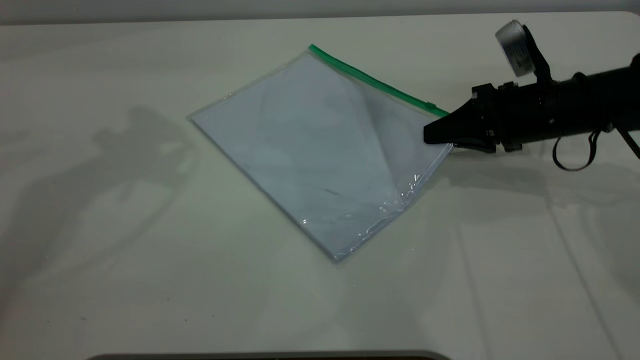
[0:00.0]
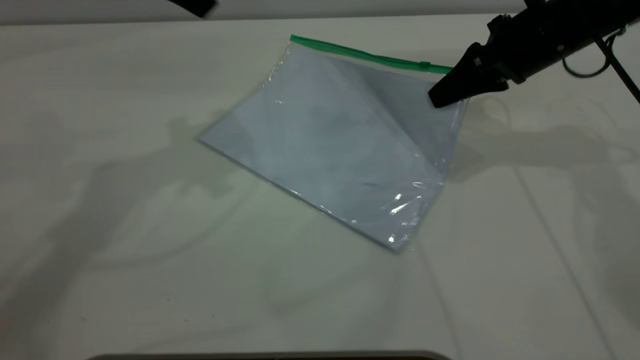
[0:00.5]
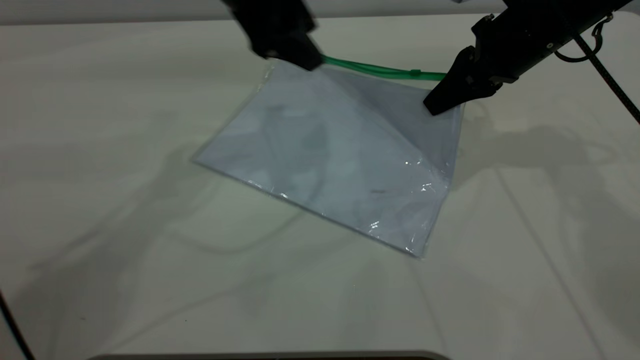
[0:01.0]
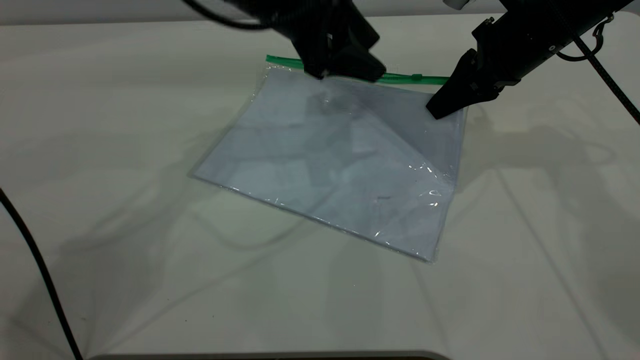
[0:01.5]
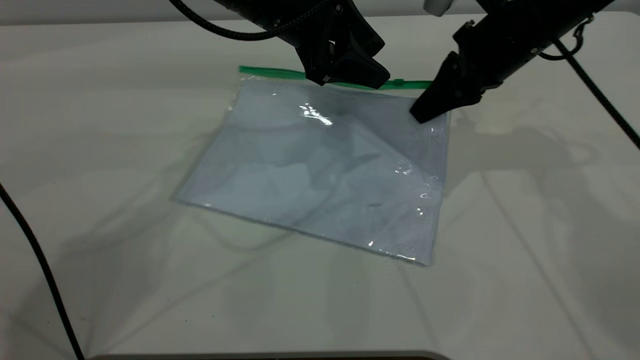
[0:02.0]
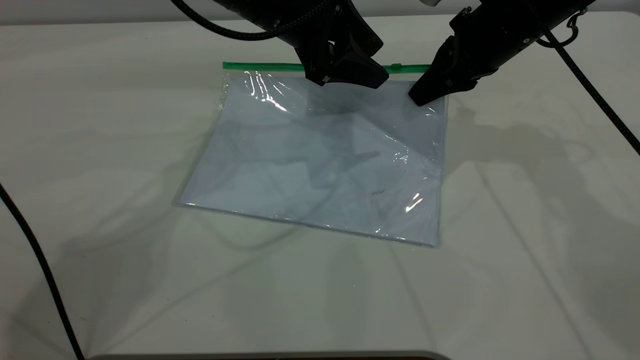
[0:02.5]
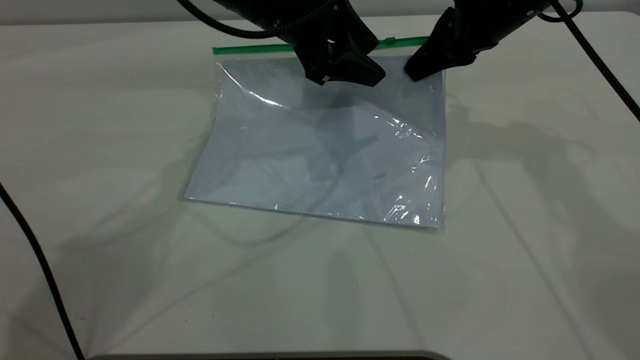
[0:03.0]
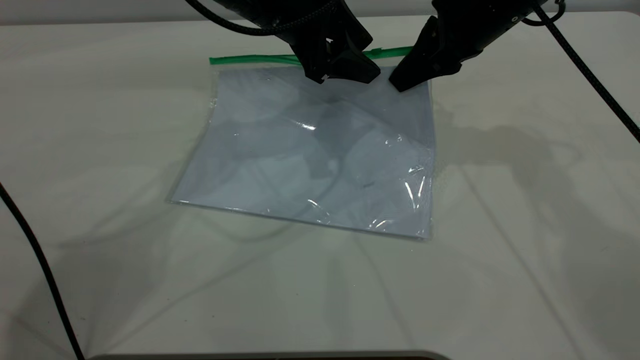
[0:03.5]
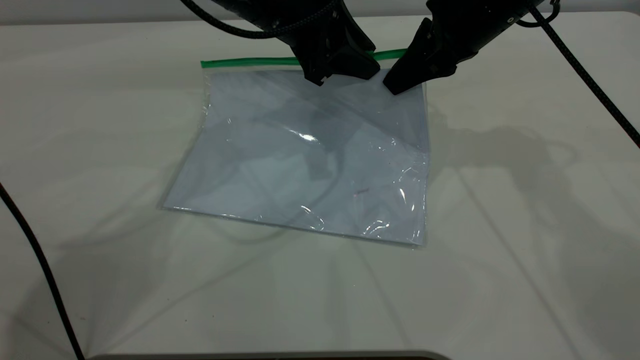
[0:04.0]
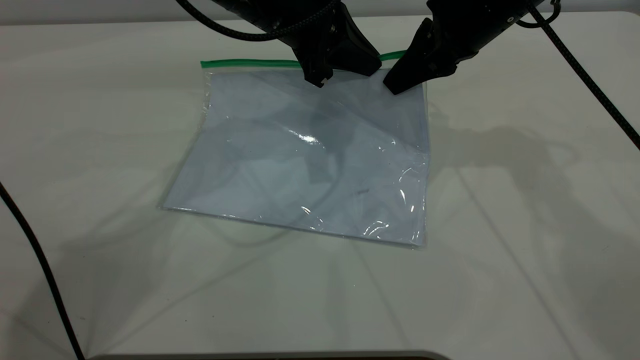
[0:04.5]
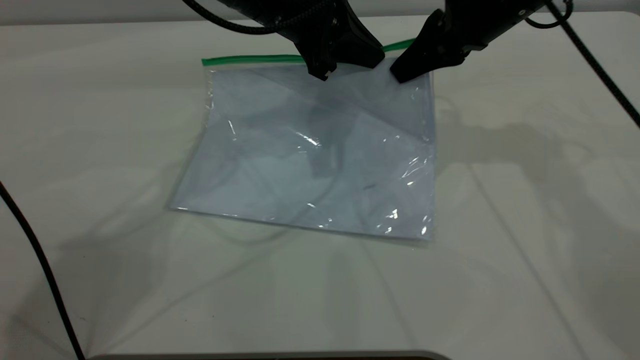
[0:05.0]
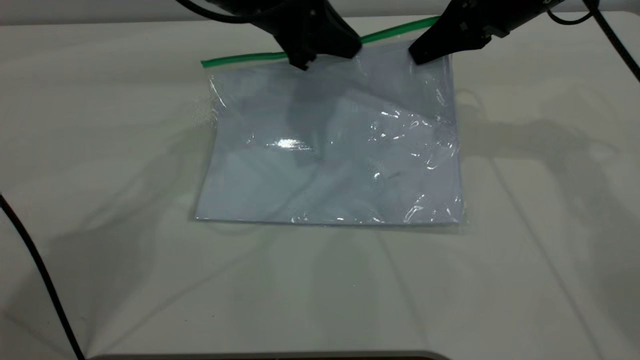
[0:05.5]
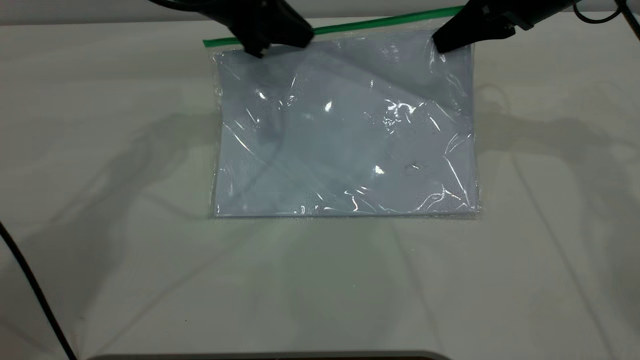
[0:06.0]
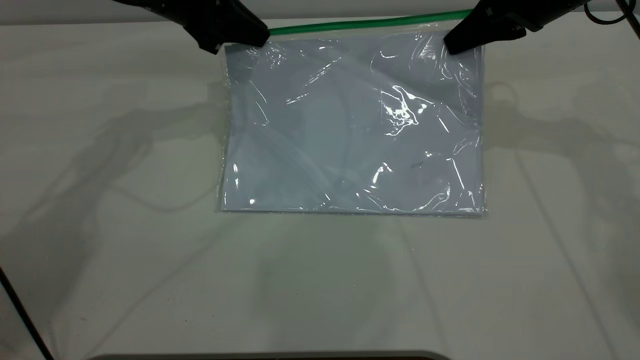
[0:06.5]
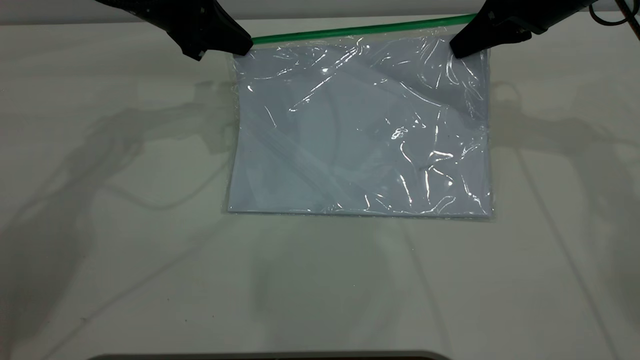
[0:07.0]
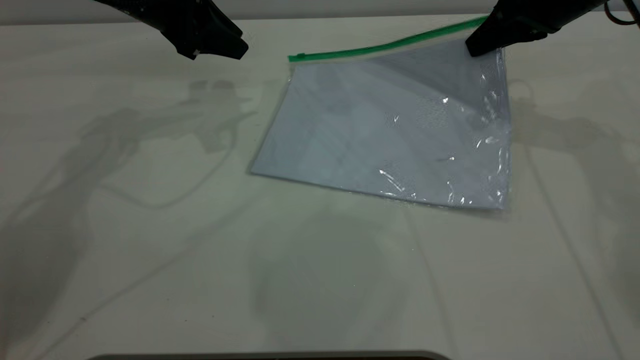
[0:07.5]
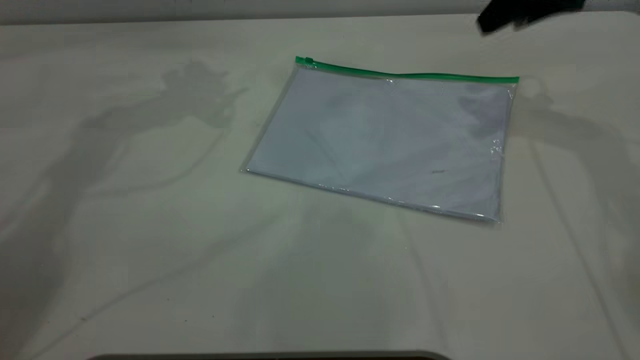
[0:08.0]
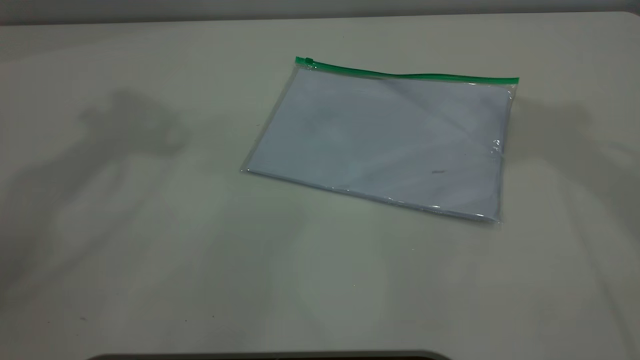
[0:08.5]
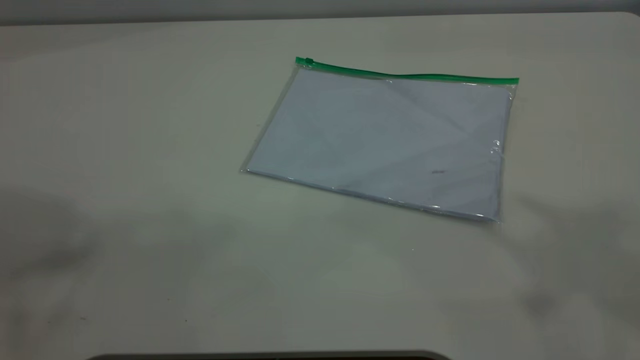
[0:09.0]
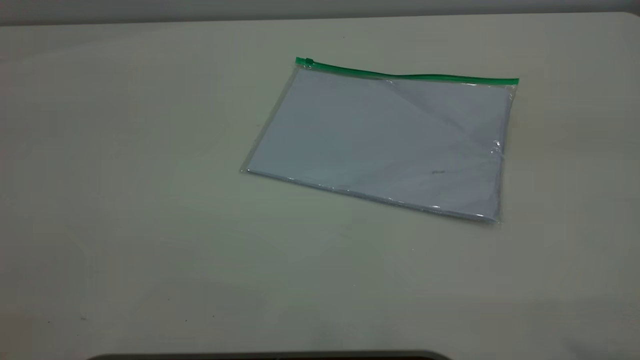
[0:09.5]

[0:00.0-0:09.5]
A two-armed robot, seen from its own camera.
Step, 0:01.0 to 0:07.0: Pulling up the zipper on the transparent plastic bag with the left gripper to close it.
Step, 0:07.5 to 0:08.5: Place the transparent plastic bag.
0:00.0 to 0:02.0: The left gripper goes some 25 cm to the right and downward. The right gripper moves upward and to the left, about 10 cm.
0:02.0 to 0:04.0: The left gripper closes its fingers.
0:04.0 to 0:05.5: The left gripper closes up; the right gripper shifts by roughly 5 cm.
0:05.5 to 0:07.5: The right gripper ends up some 5 cm from where it was; the left gripper heads to the left, covering about 10 cm, and opens its fingers.
0:07.5 to 0:09.5: The grippers both shift backward and upward by some 50 cm. The right gripper opens its fingers.

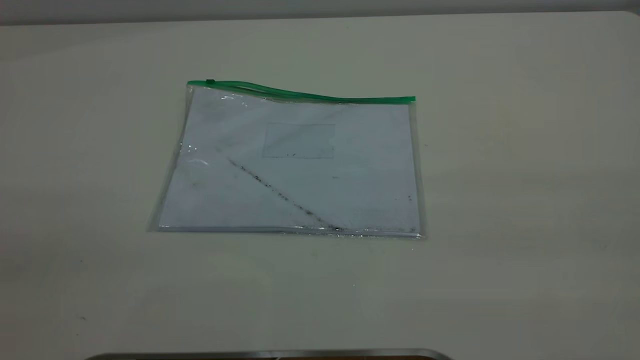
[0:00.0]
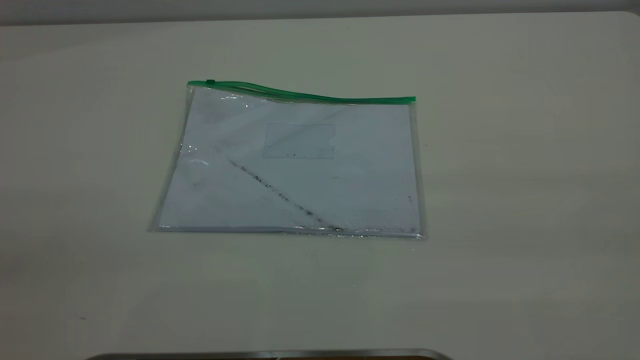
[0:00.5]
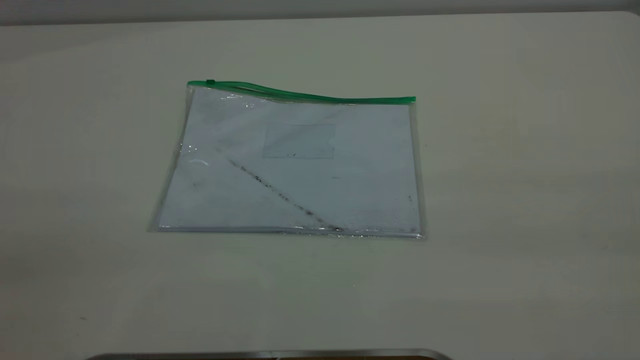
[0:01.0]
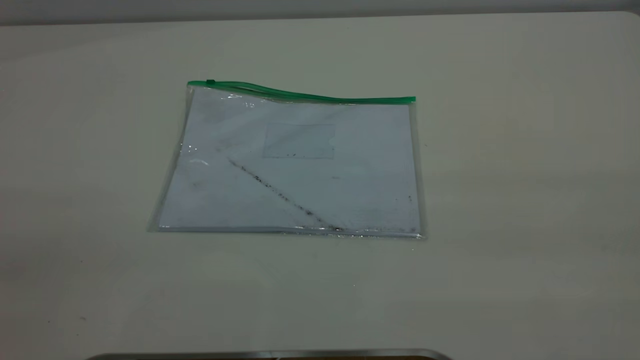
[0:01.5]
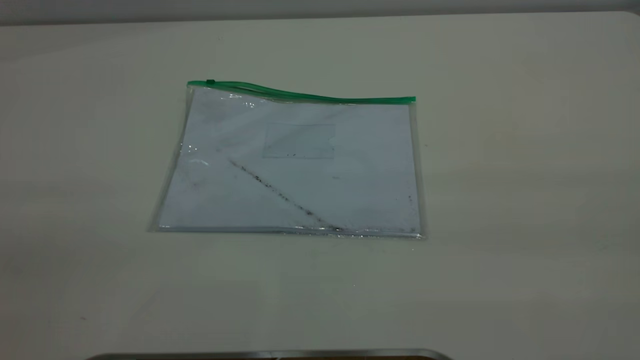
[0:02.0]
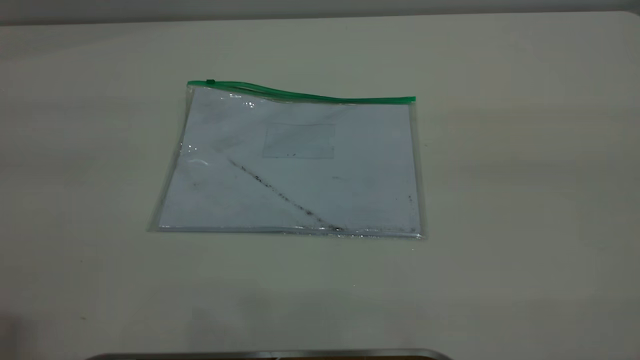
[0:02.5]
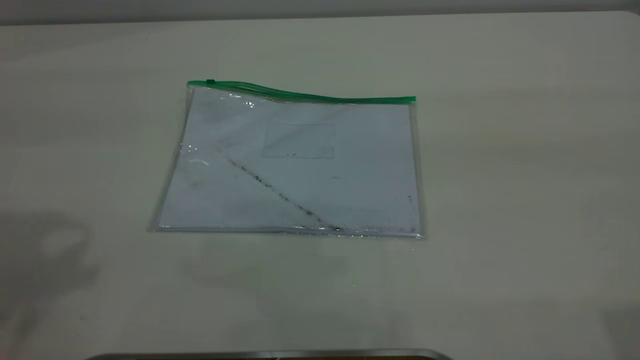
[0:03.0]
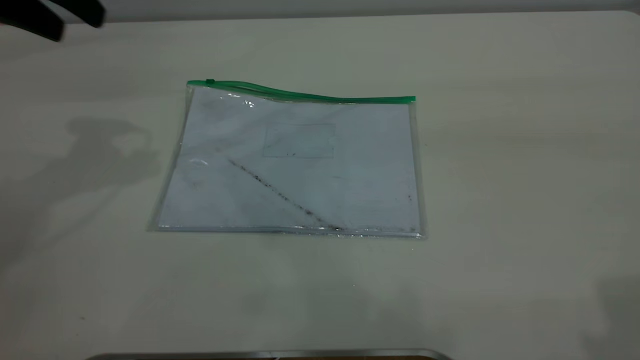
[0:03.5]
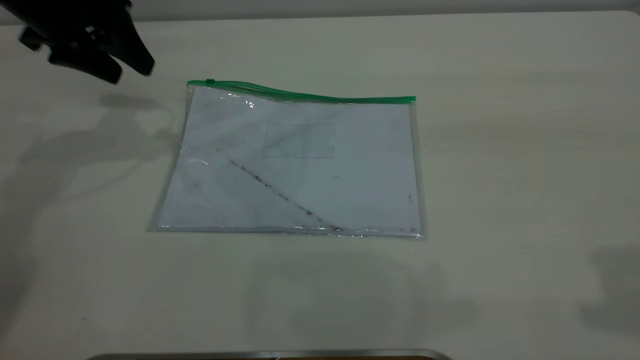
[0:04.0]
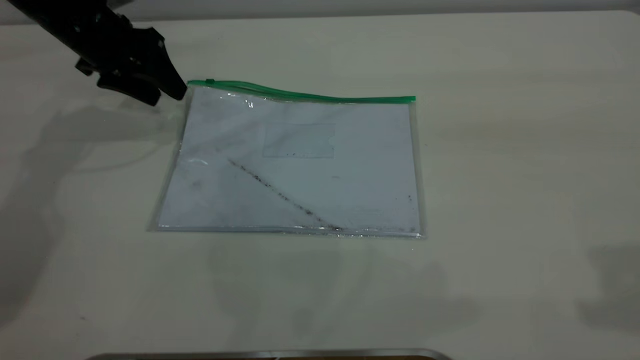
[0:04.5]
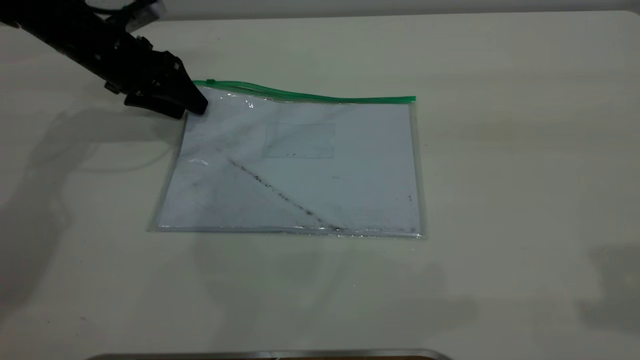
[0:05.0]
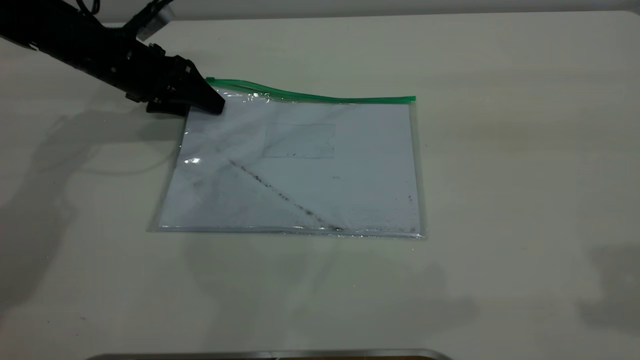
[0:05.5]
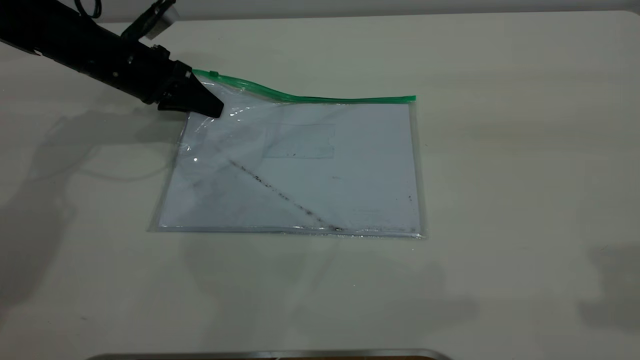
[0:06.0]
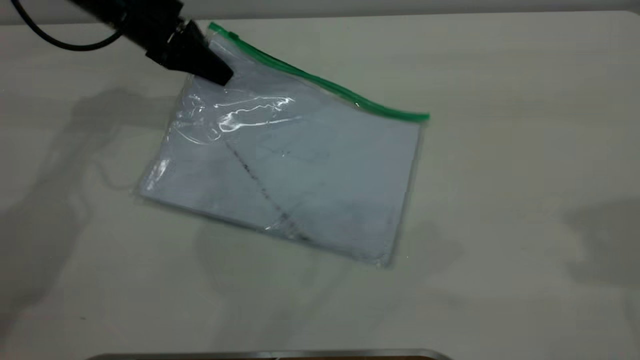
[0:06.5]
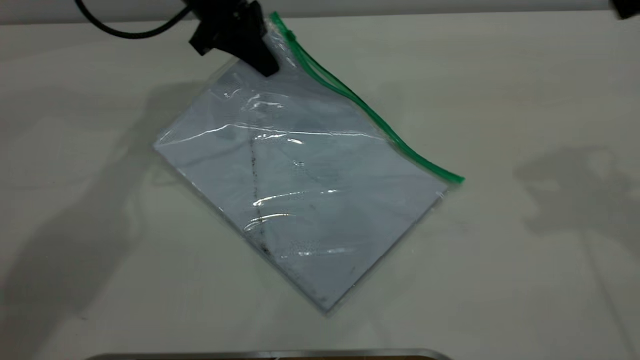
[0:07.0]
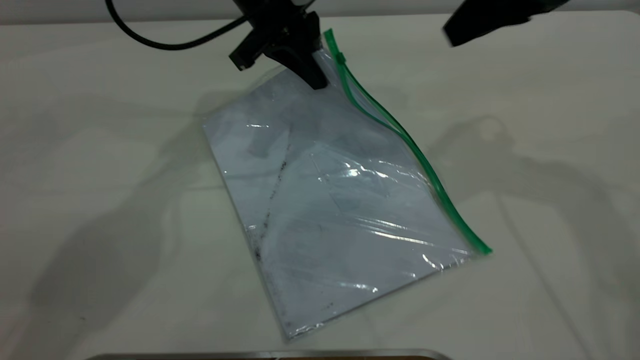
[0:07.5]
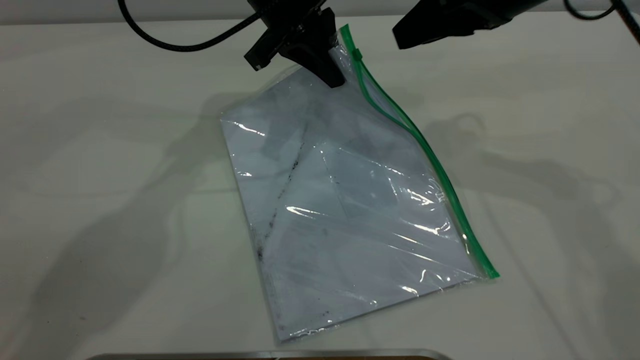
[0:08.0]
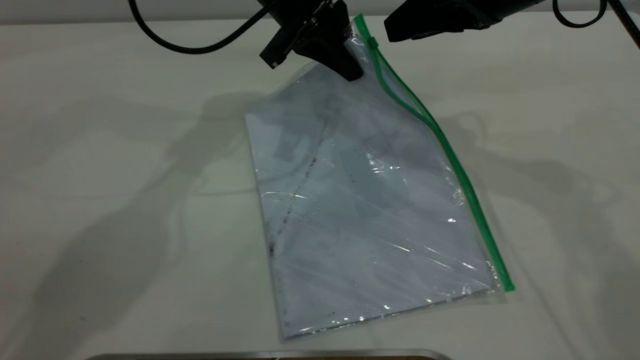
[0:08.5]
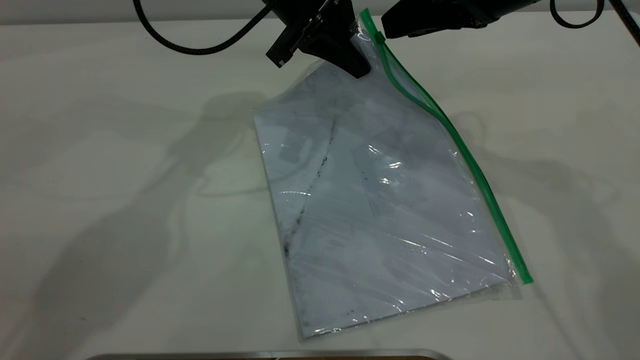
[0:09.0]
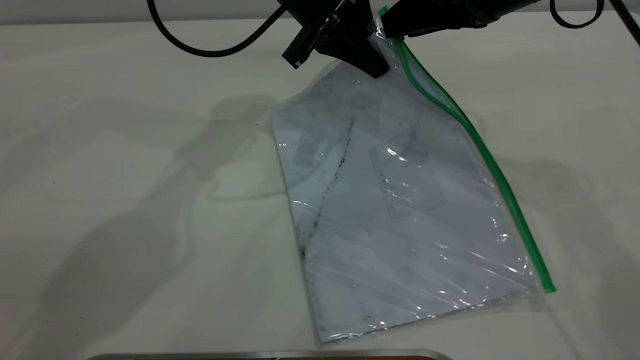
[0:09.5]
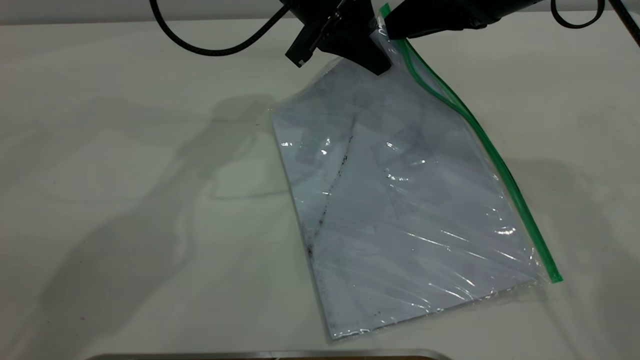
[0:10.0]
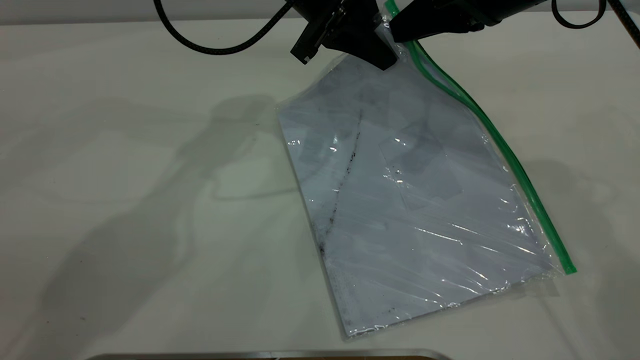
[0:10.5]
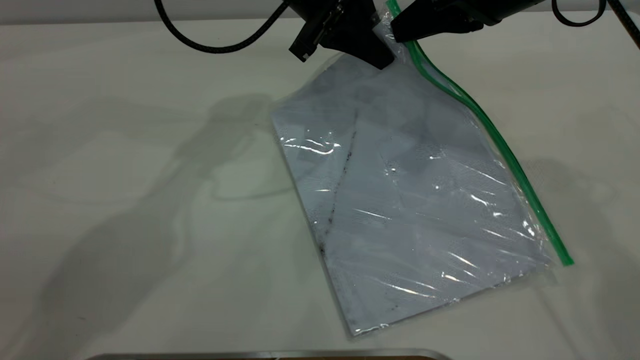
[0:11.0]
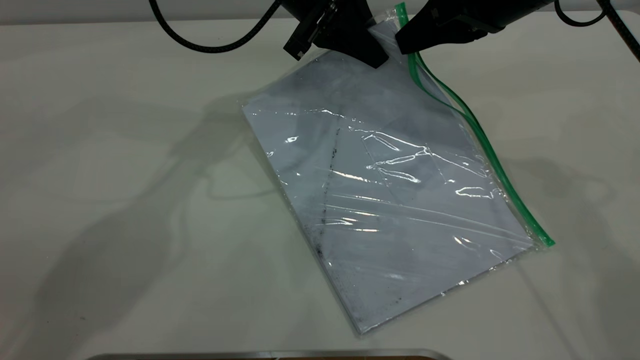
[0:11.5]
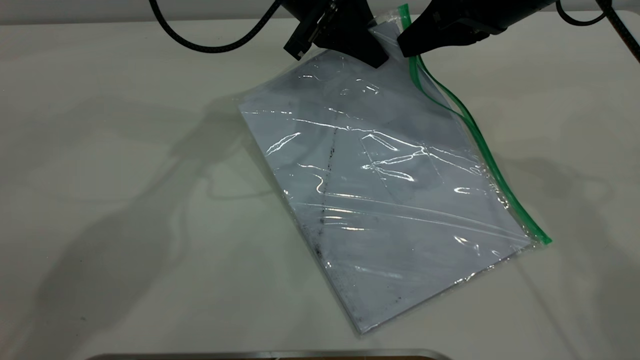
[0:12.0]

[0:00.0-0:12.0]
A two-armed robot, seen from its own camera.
Step, 0:00.0 to 0:06.0: Pick up the transparent plastic bag with the left gripper.
0:02.0 to 0:04.0: The left gripper is displaced forward and downward by approximately 50 cm.
0:04.0 to 0:06.0: The left gripper heads downward, covering roughly 10 cm, and closes its fingers.
0:06.0 to 0:08.0: The left gripper shifts roughly 20 cm to the right and upward; the right gripper moves forward, downward and to the left, about 25 cm.
0:08.0 to 0:10.0: The grippers stay close to where they were, moving slightly.
0:10.0 to 0:12.0: The right gripper closes.
